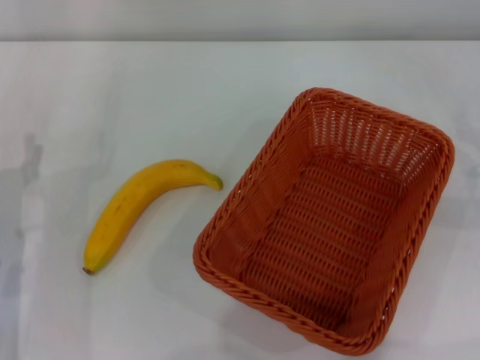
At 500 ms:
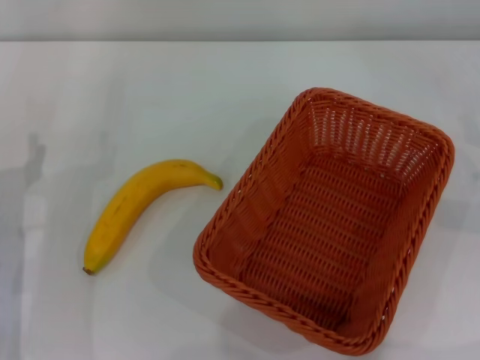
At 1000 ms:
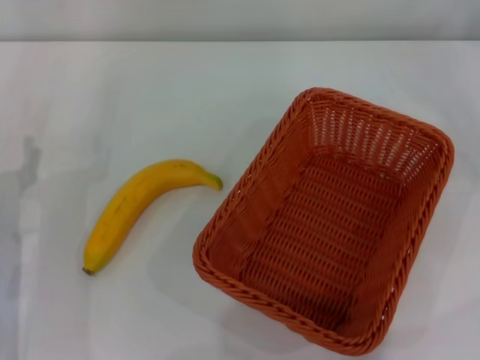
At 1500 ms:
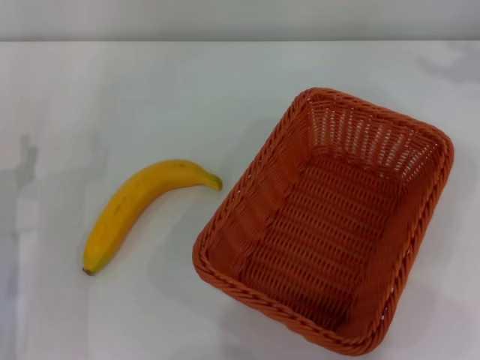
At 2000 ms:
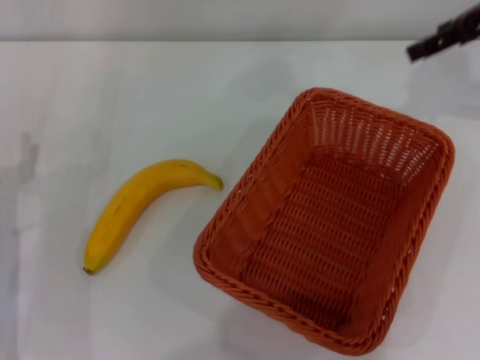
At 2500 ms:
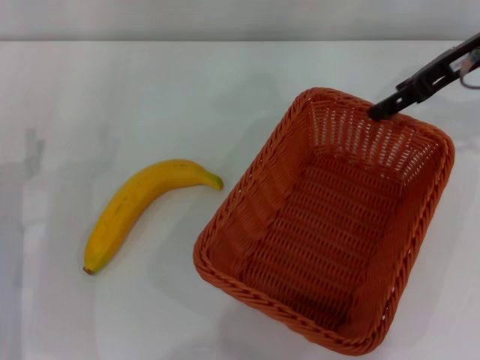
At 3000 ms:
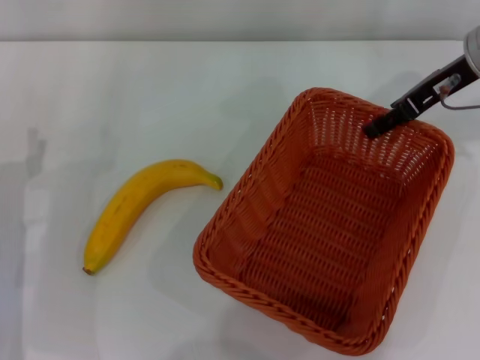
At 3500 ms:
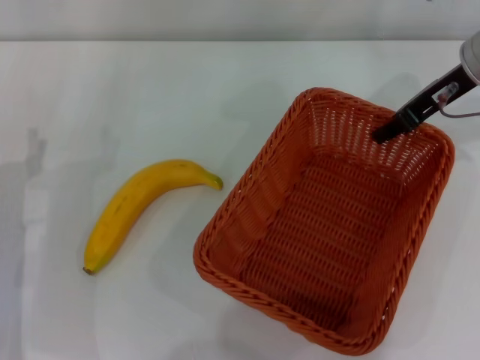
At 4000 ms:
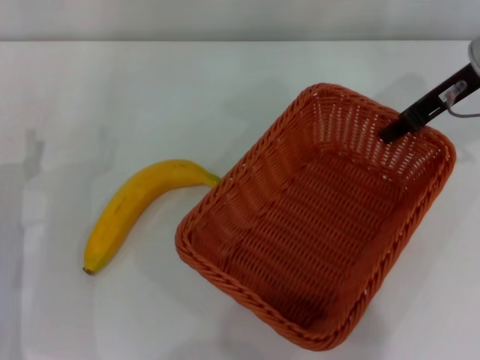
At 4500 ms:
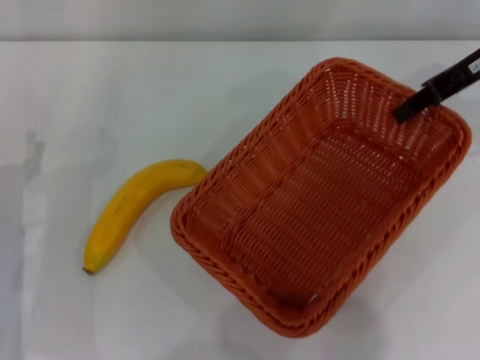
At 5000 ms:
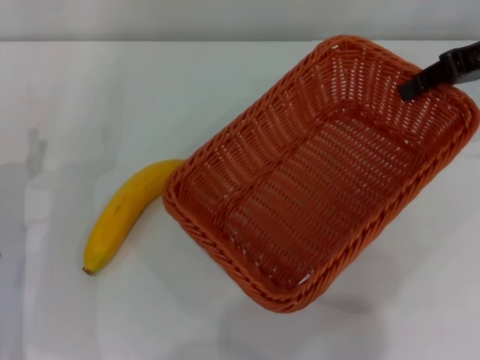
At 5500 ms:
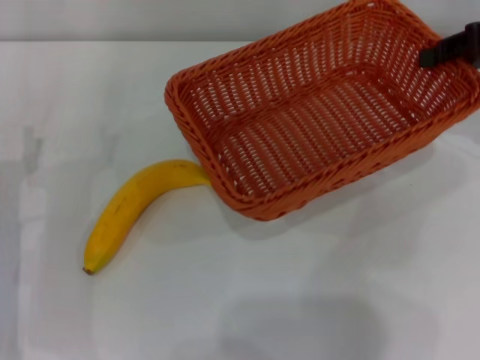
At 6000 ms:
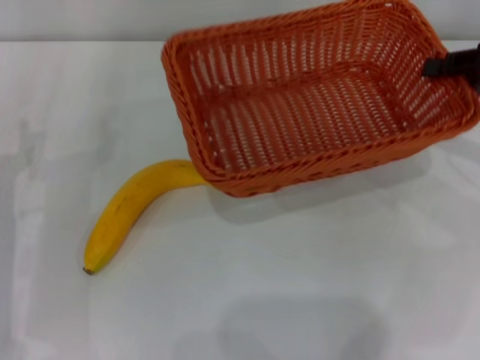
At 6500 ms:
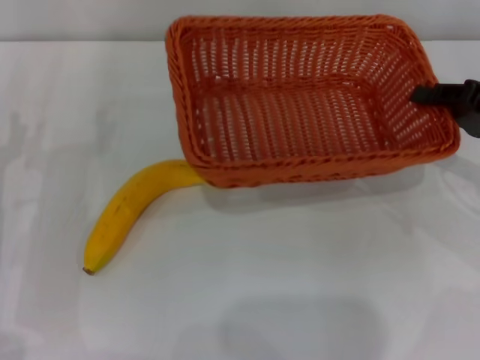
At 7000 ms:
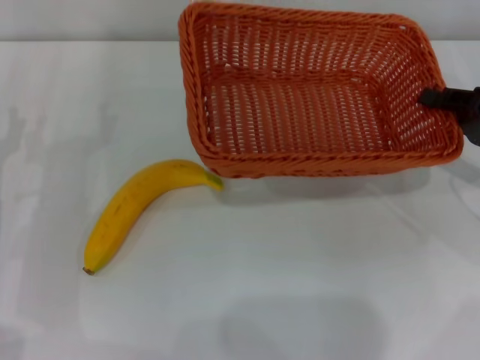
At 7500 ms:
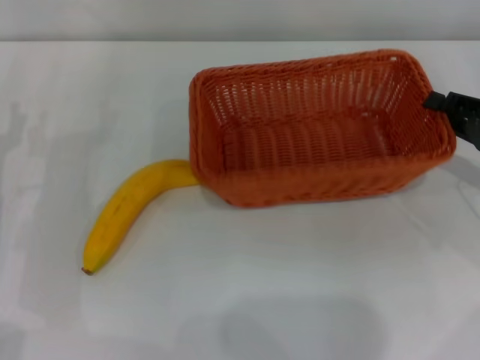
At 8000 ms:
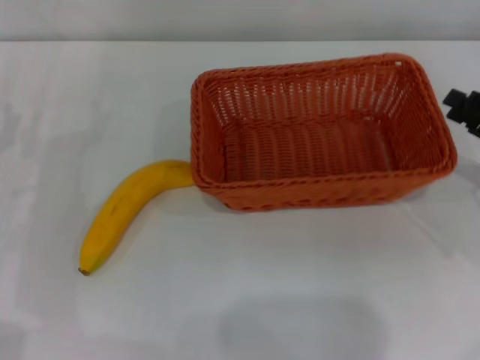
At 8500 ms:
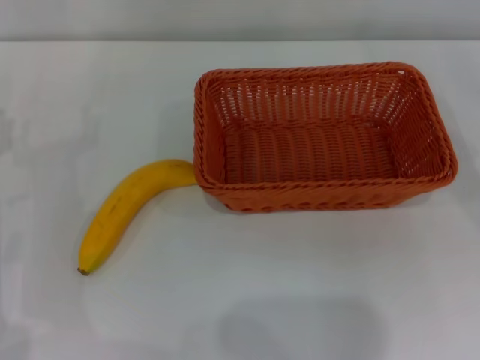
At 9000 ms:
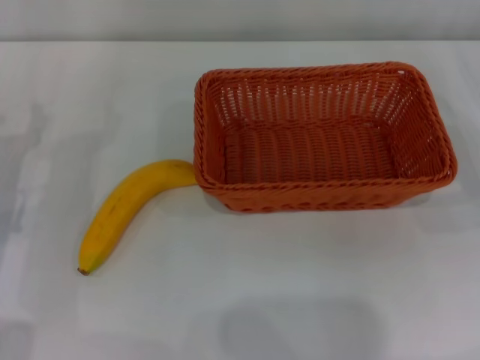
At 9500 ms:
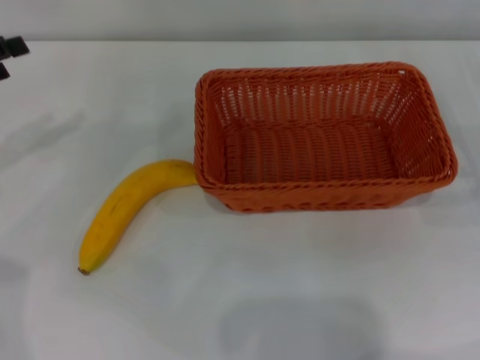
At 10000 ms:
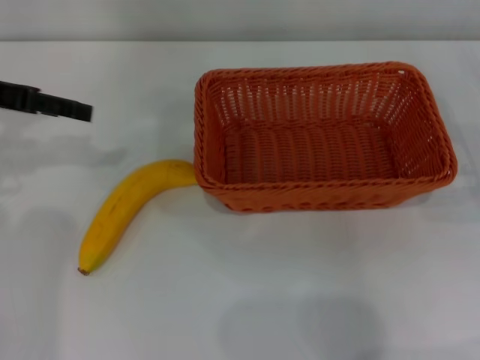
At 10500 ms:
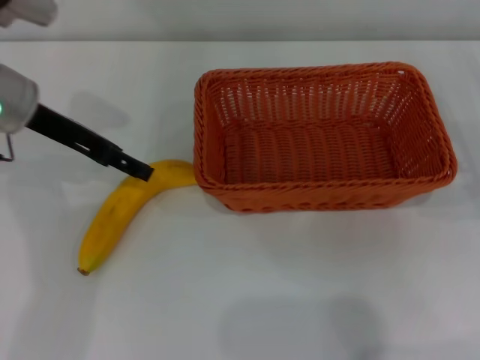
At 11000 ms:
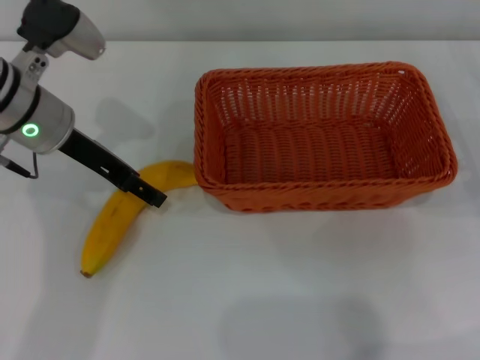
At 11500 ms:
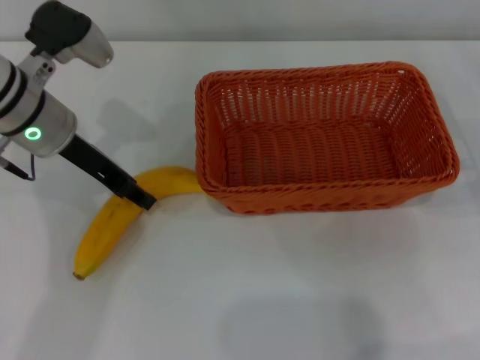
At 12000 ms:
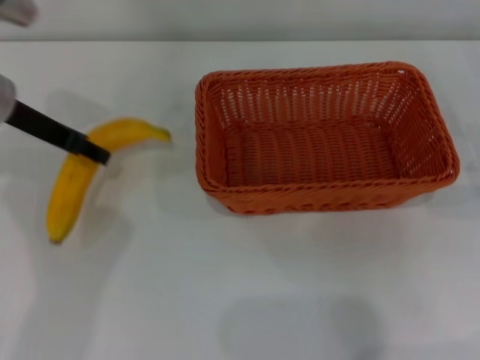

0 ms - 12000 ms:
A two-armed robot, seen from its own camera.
Step, 0 ms - 4500 ms: Pick up the dark basket with the right gripper.
Step, 5000 ms - 7500 ms: Place the dark basket in the center of view with the right gripper.
0 ms - 2000 ms: The right gripper shifts some 25 cm upward, forward and to the left.
2000 ms - 4000 ms: The right gripper moves downward and to the left, roughly 10 cm, and closes.
4000 ms - 6000 ms: The right gripper is displaced to the right and backward by roughly 10 cm.
6000 ms - 8000 ms: The right gripper moves downward and backward, some 10 cm.
8000 ms - 10000 ms: The left gripper goes about 15 cm upward and forward. Meanwhile the right gripper changes place by roughly 5 cm, and opens up.
10000 ms - 12000 ms: The left gripper travels to the right by approximately 5 cm, and closes.

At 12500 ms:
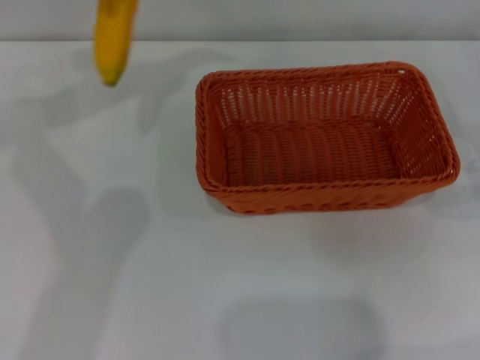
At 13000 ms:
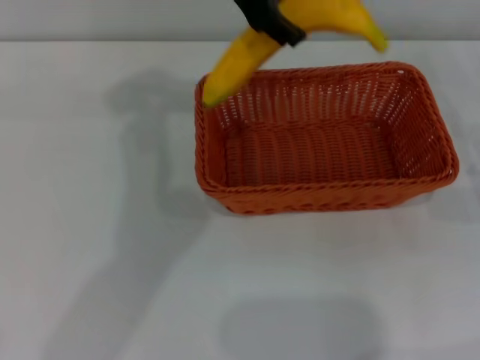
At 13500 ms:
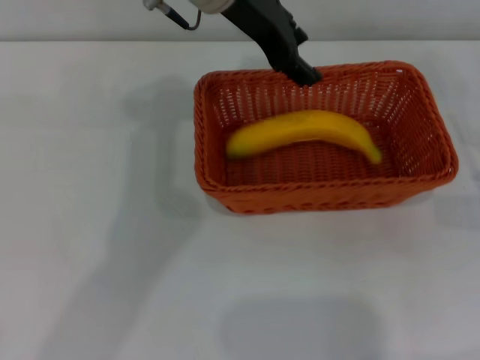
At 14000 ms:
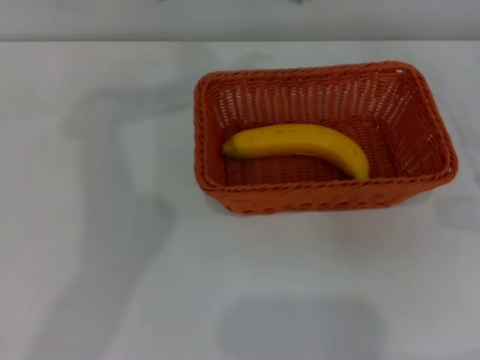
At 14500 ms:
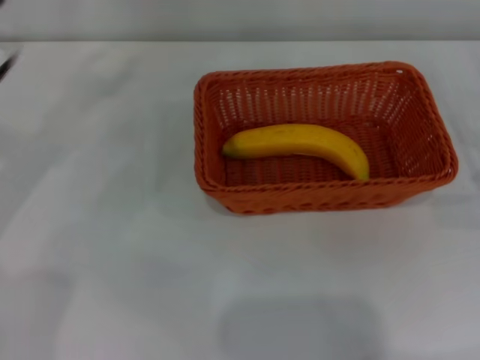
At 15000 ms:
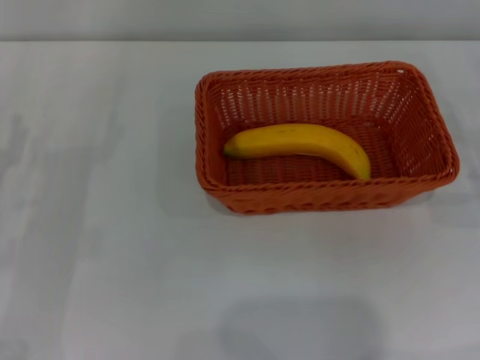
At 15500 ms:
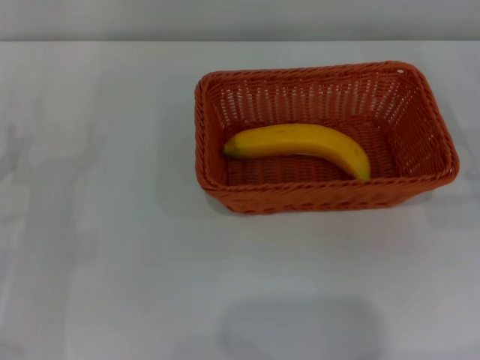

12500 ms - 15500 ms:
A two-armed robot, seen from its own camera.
Step, 12500 ms - 13500 ms: Place the banana into the dark basket with the left gripper.
12500 ms - 14000 ms: The left gripper shifts roughly 10 cm to the right, and opens.

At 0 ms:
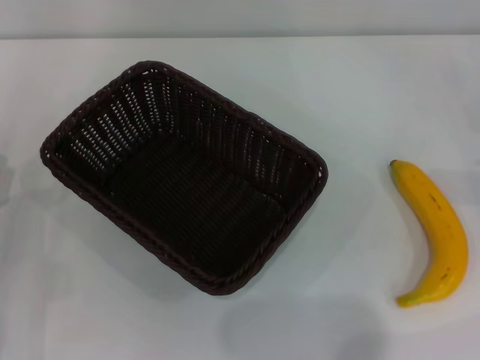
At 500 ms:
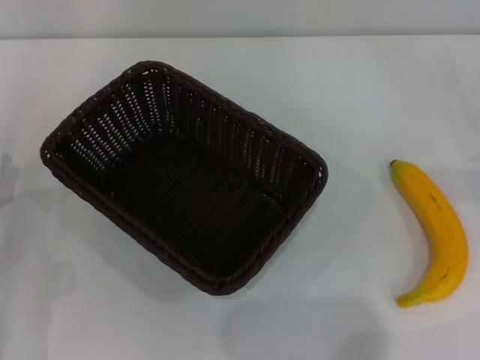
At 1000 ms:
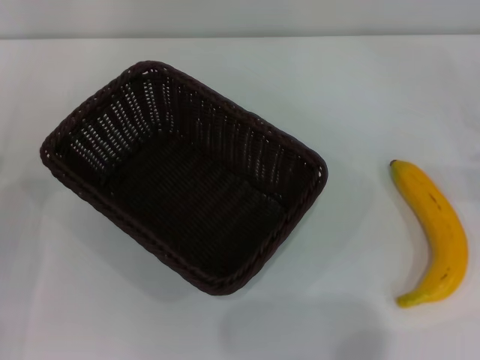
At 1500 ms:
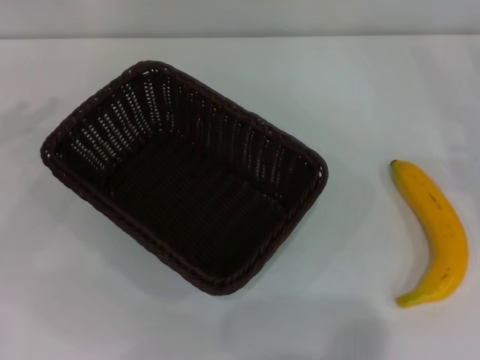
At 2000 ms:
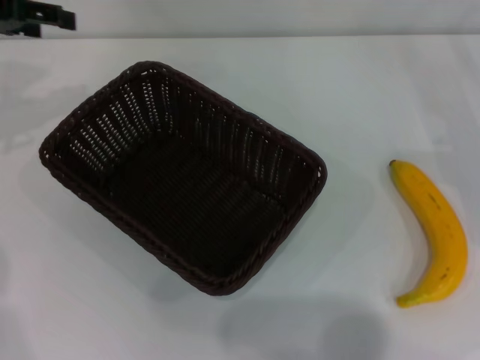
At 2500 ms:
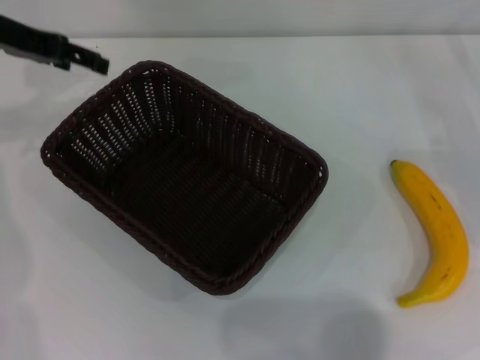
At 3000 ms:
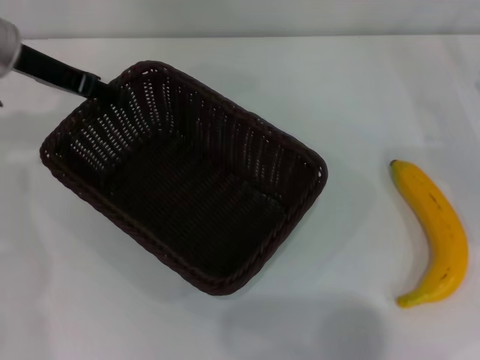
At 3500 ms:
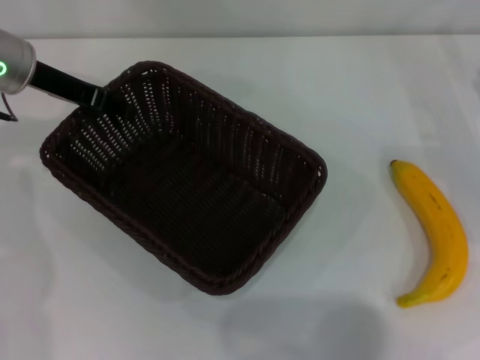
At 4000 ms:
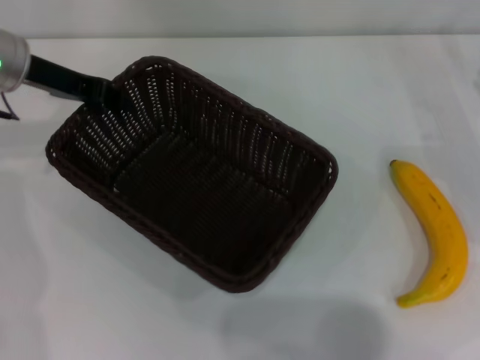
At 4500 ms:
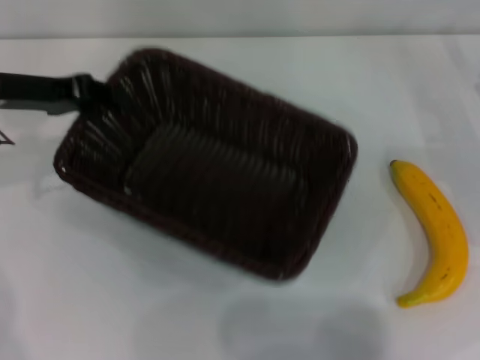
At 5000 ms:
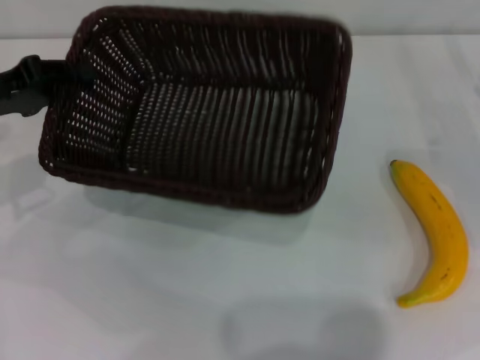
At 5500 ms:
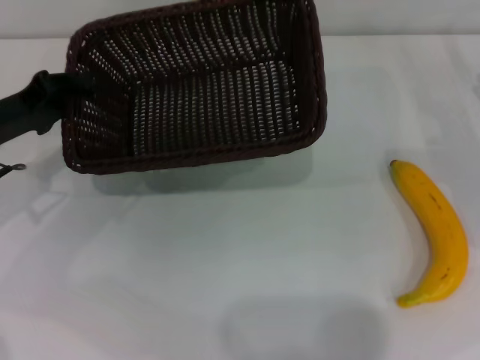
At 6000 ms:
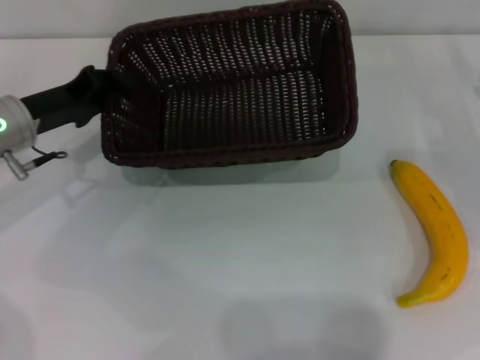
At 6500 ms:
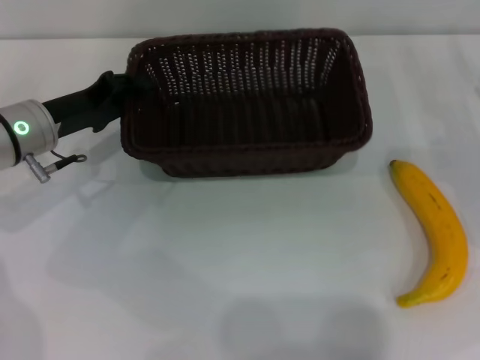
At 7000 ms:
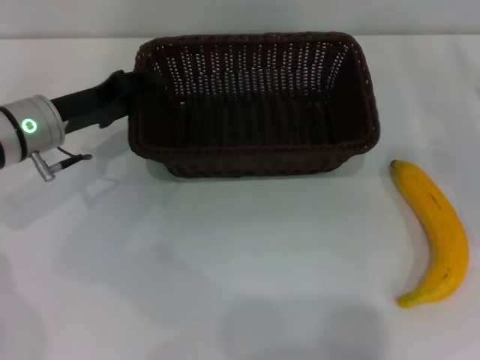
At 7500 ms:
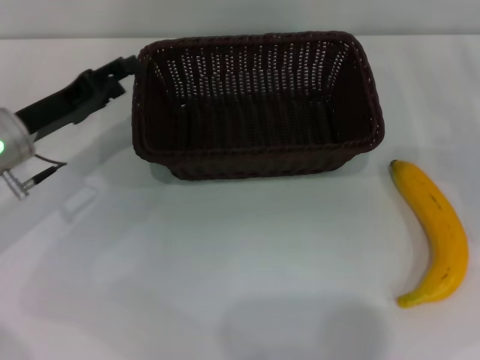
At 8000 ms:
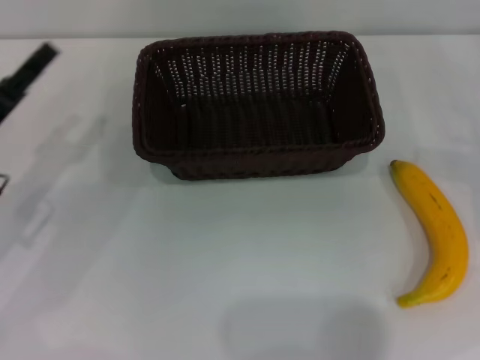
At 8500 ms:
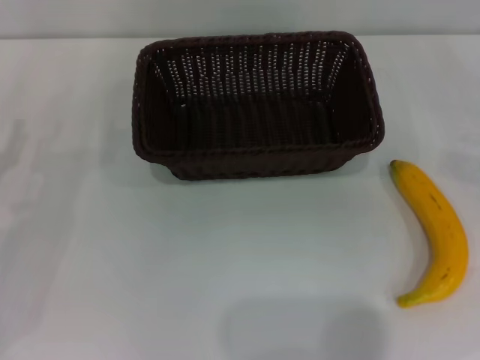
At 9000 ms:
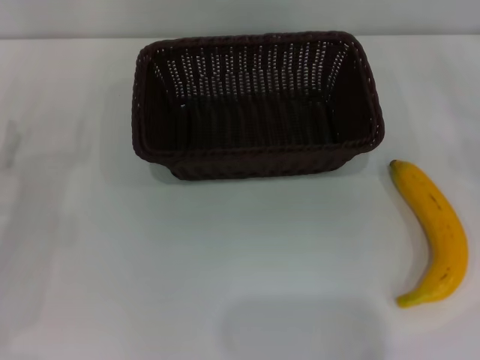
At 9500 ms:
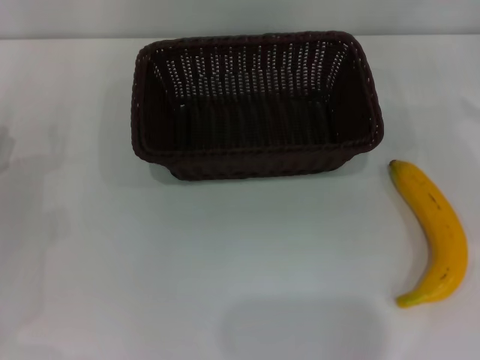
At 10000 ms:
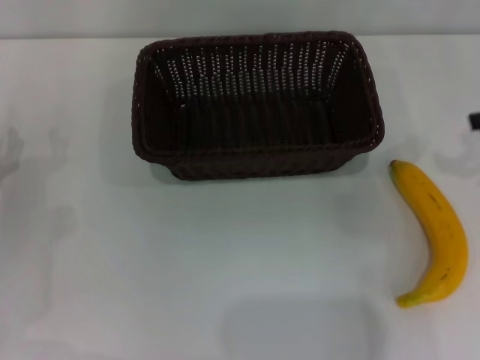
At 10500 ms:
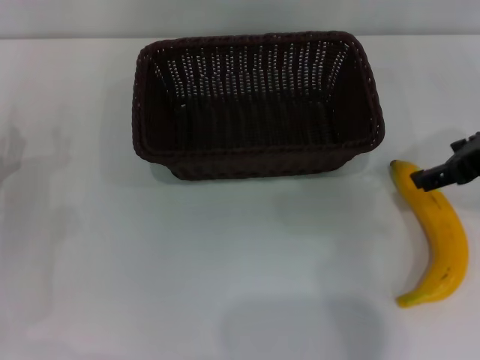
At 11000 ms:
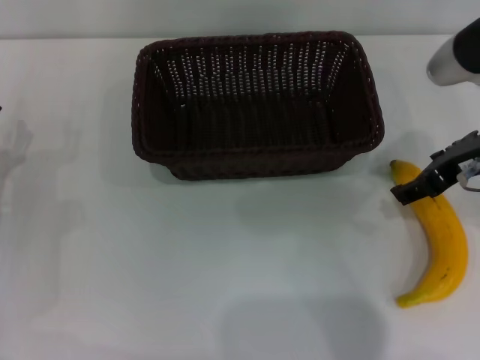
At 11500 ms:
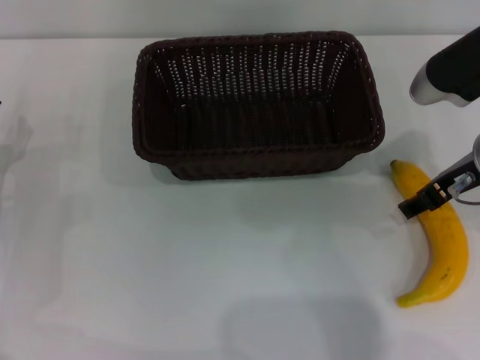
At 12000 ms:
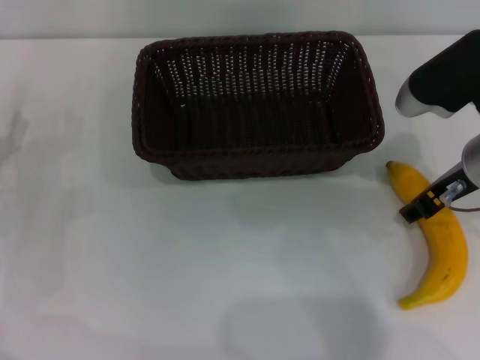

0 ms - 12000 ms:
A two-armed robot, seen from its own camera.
Step, 0 ms - 4000 ms: Pick up the dark basket with the left gripper.
Step, 5000 ms - 7500 ms: Place the dark basket in the center of view with the left gripper.
0 ms - 2000 ms: The left gripper moves upward and forward, roughly 30 cm.
2000 ms - 4000 ms: The left gripper moves to the right and downward, approximately 10 cm, and closes up.
4000 ms - 6000 ms: The left gripper goes roughly 10 cm downward and backward.
6000 ms - 8000 ms: The left gripper goes some 10 cm backward, and opens.
8000 ms - 10000 ms: The left gripper shifts roughly 5 cm downward.
10000 ms - 12000 ms: The right gripper is displaced to the left and downward by about 15 cm.
